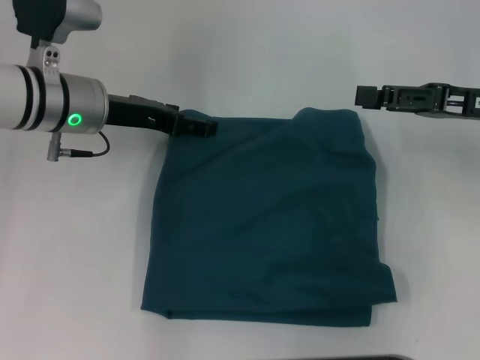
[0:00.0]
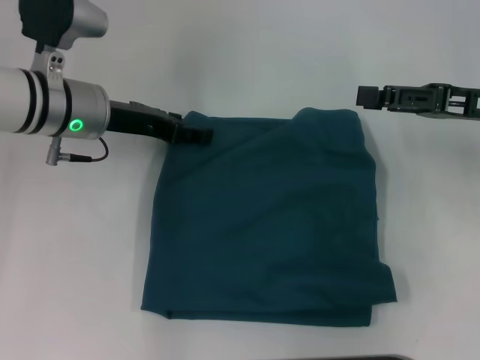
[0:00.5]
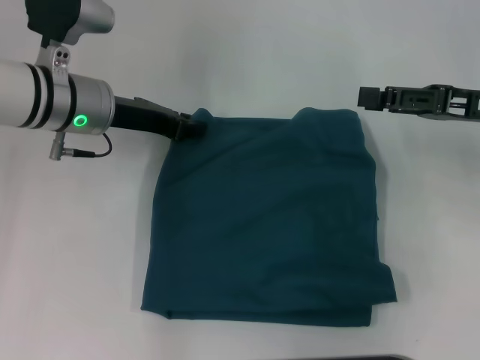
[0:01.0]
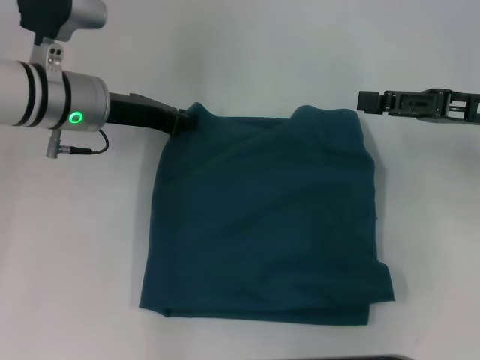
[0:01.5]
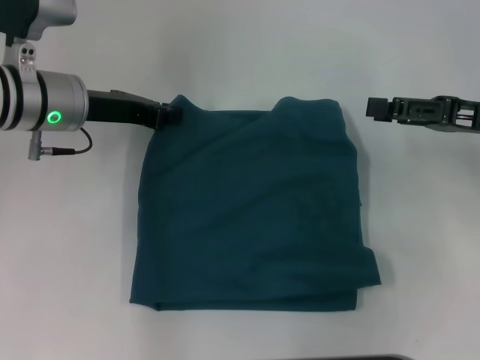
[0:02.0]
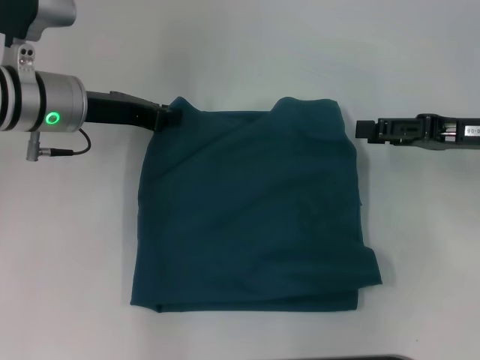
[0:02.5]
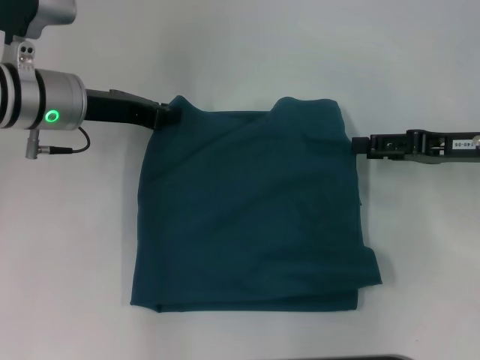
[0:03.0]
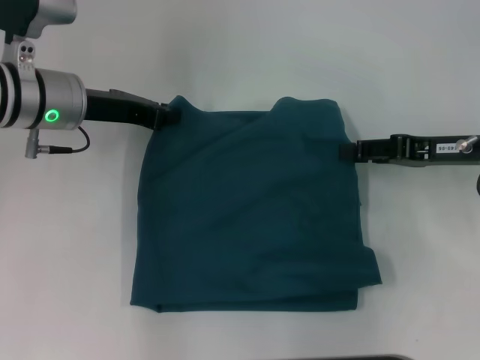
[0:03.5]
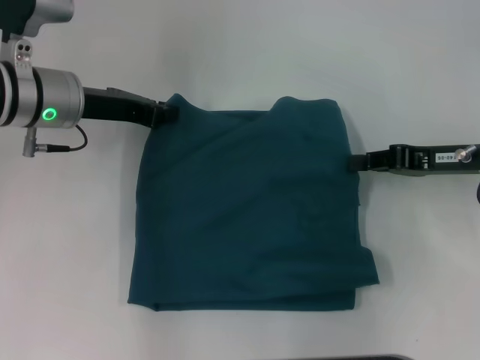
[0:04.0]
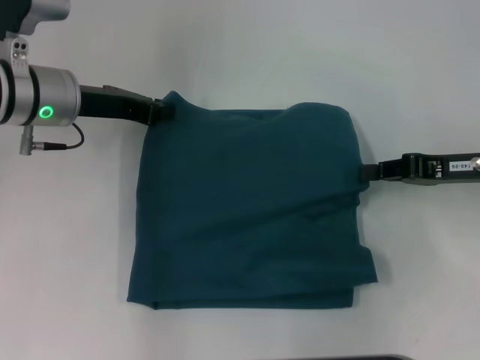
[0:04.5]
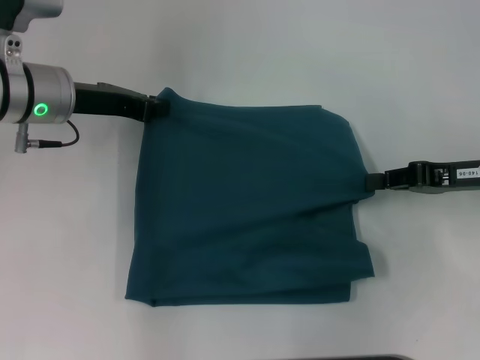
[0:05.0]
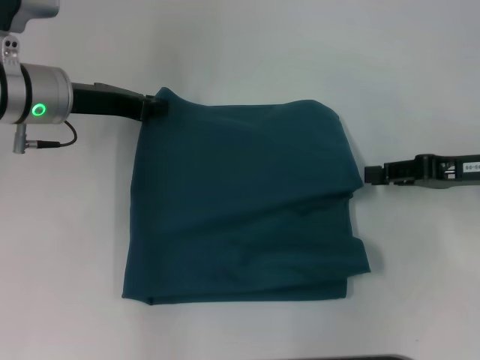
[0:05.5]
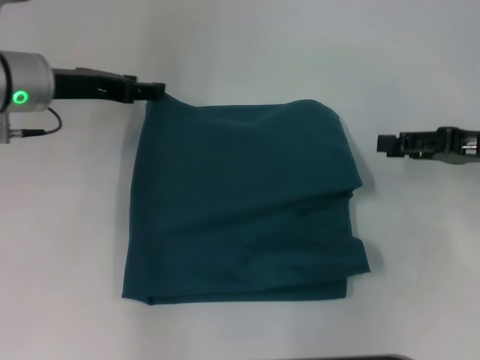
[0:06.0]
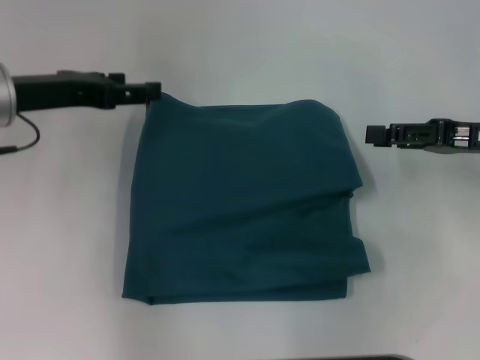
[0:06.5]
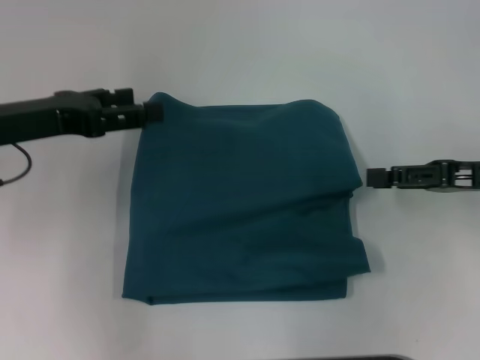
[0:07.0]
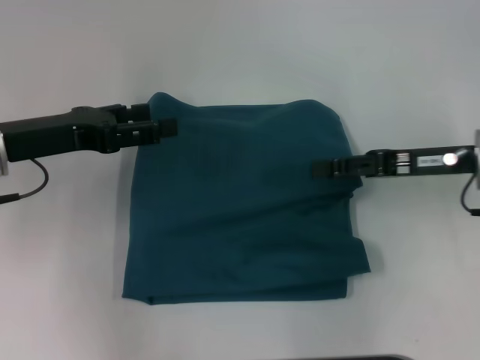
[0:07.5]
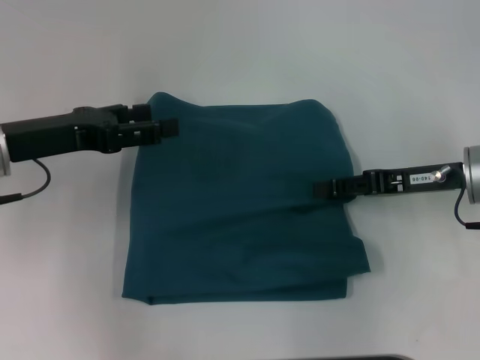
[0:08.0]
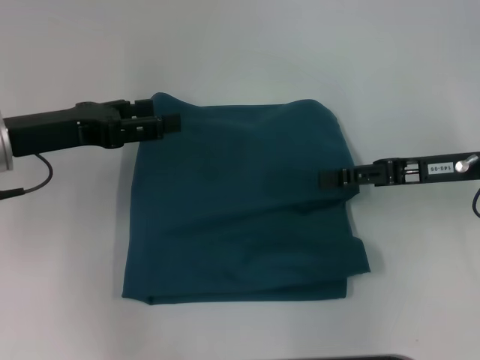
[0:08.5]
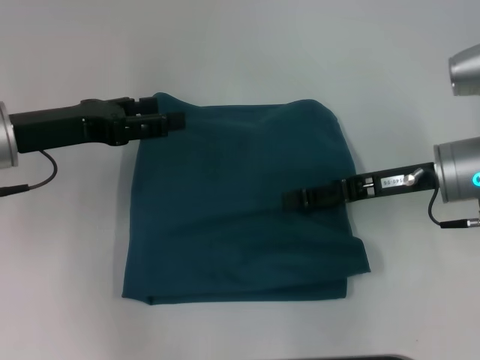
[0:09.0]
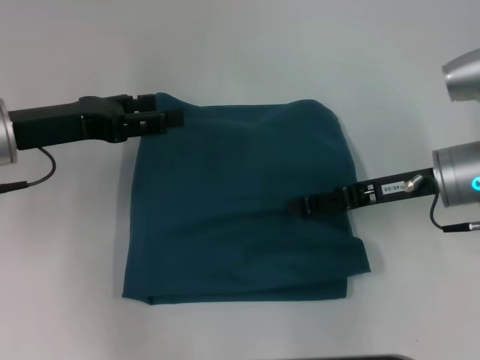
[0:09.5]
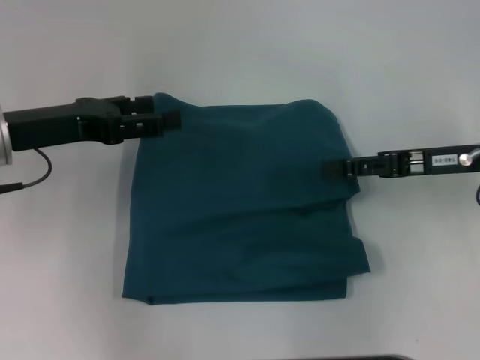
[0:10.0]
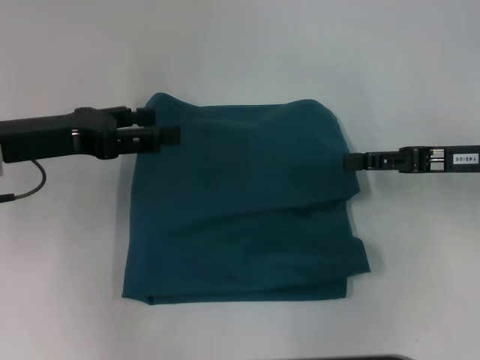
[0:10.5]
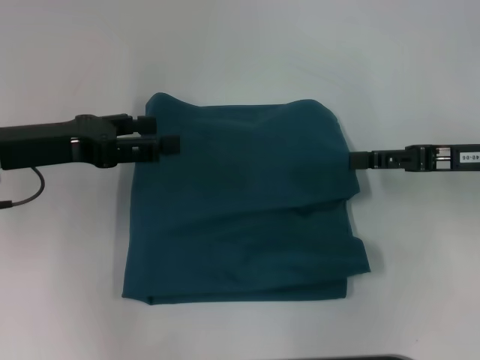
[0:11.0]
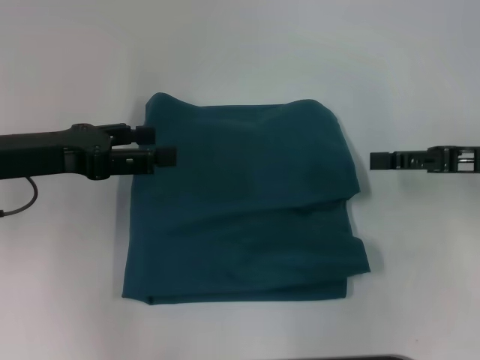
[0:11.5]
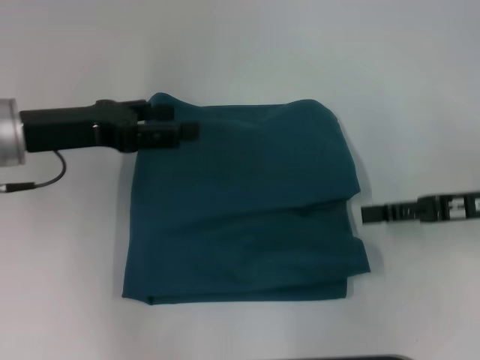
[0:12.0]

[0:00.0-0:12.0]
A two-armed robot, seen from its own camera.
0:00.0 to 0:02.0: The left gripper closes its fingers.
0:02.0 to 0:04.0: The right gripper closes up.
0:04.0 to 0:06.0: The left gripper opens its fingers. Meanwhile the right gripper opens up.
0:06.0 to 0:08.0: The left gripper heads backward, covering roughly 10 cm, and opens up. Meanwhile the right gripper heads to the left, covering some 5 cm.
0:08.0 to 0:10.0: The grippers move only a little.
0:10.0 to 0:12.0: The right gripper shifts by roughly 5 cm.

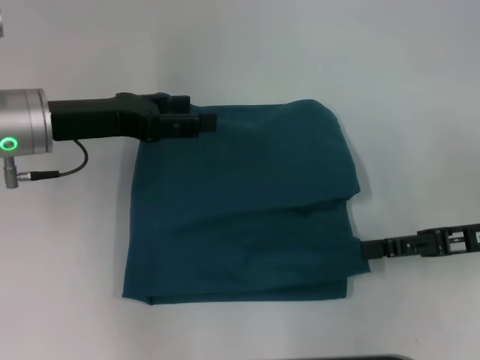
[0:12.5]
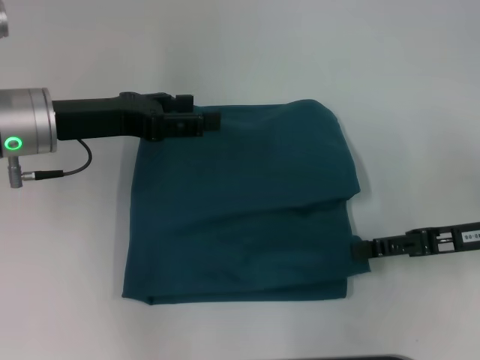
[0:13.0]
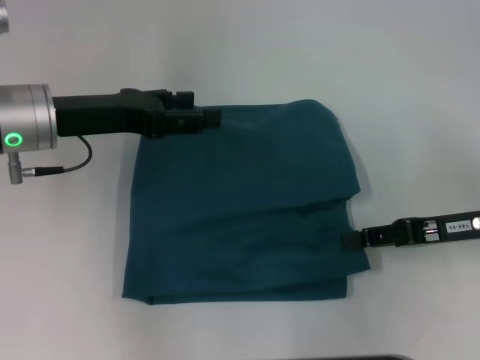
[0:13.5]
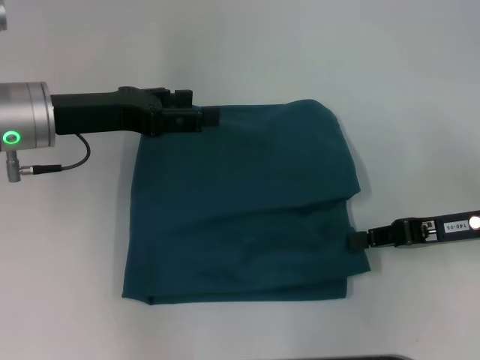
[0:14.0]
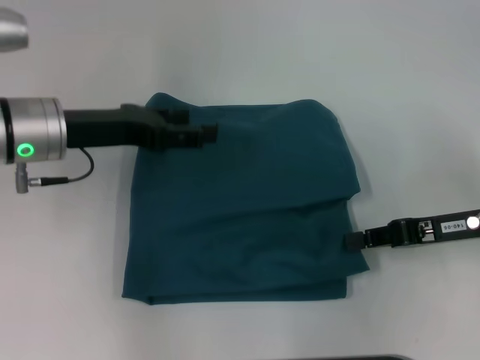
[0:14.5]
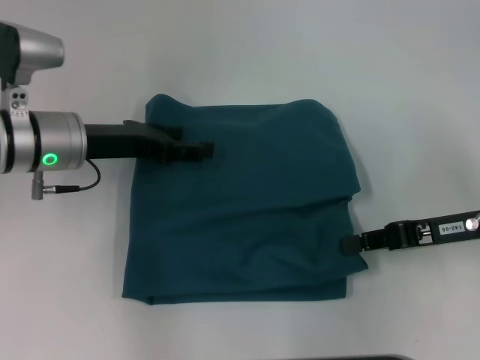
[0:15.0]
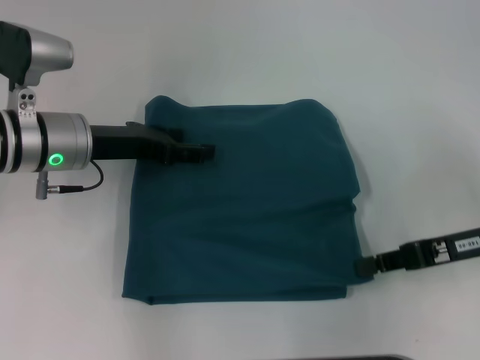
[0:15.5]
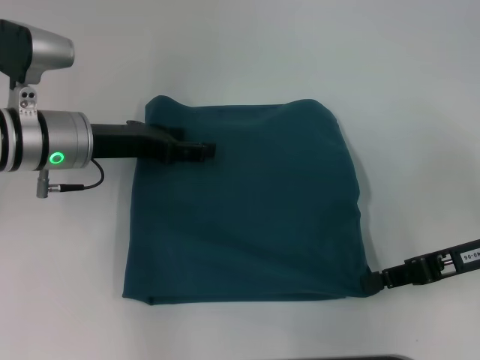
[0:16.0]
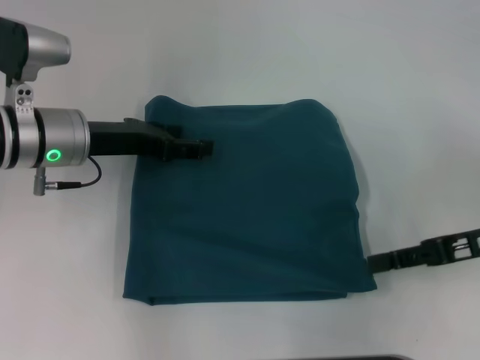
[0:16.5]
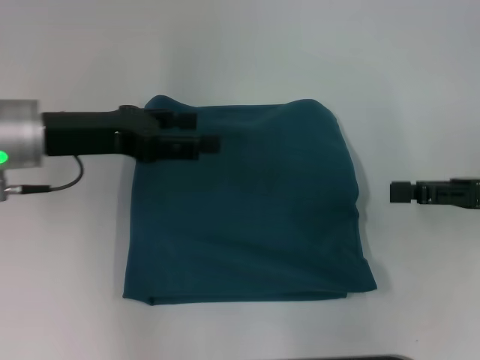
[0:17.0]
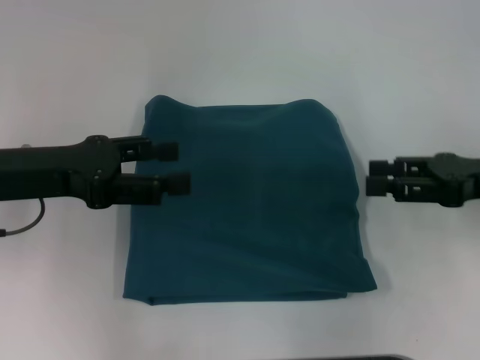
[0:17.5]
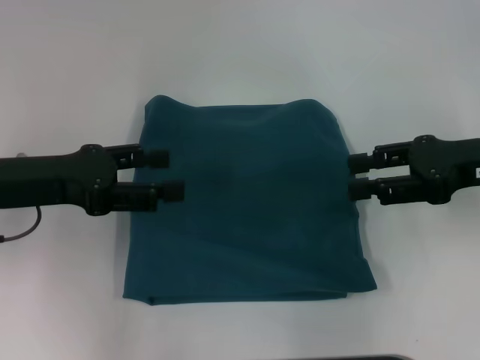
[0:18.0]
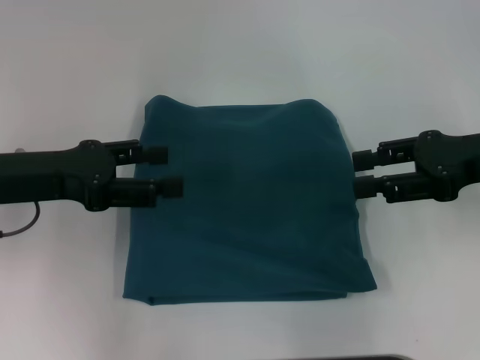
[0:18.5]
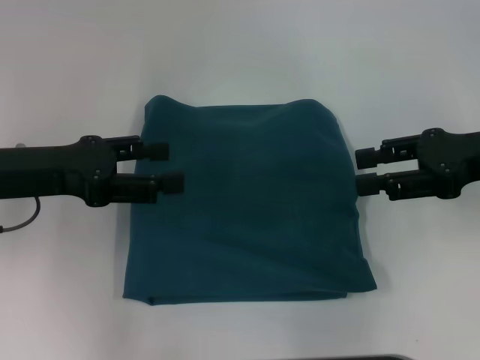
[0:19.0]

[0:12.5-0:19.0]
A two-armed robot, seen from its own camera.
0:12.5 to 0:14.5: The right gripper closes its fingers.
0:14.5 to 0:17.0: The right gripper shifts by roughly 5 cm, and opens up.
0:17.0 to 0:19.0: The left gripper shifts by some 5 cm, while the right gripper changes place by some 5 cm.

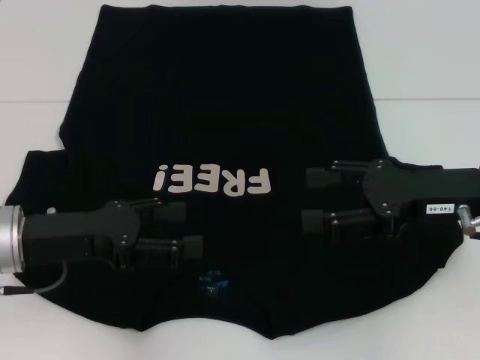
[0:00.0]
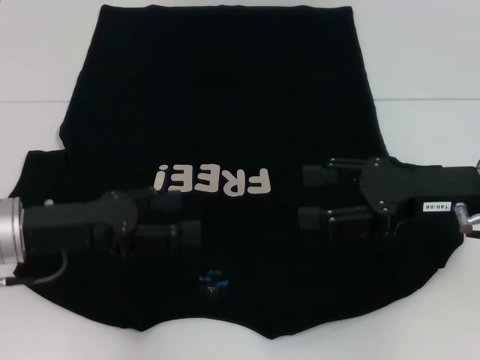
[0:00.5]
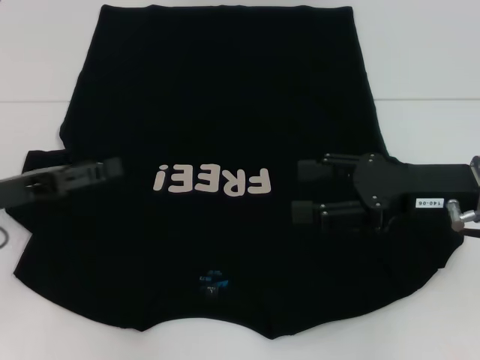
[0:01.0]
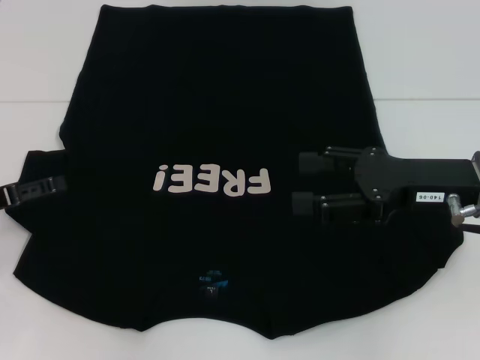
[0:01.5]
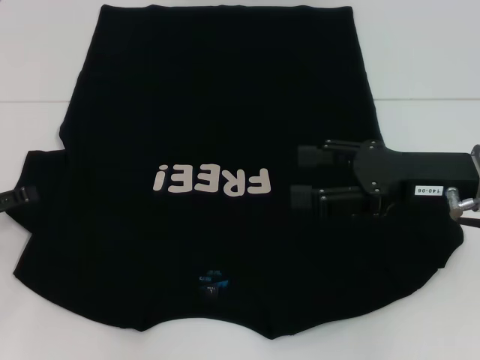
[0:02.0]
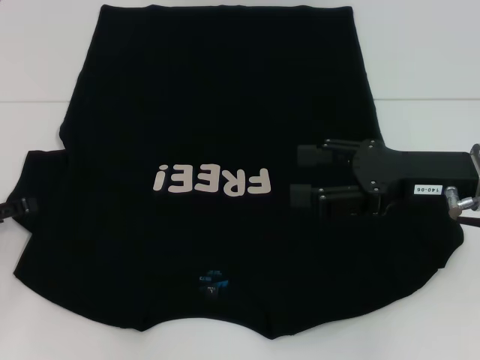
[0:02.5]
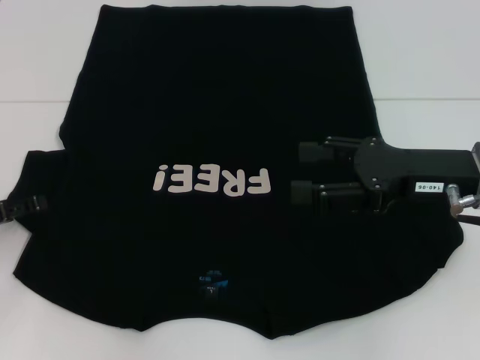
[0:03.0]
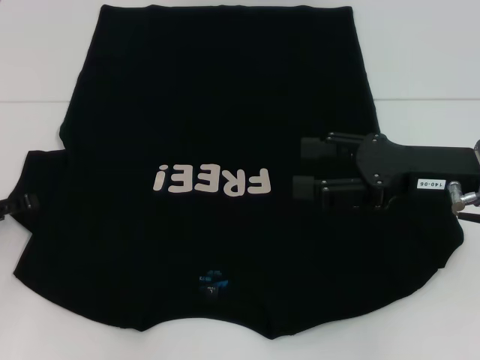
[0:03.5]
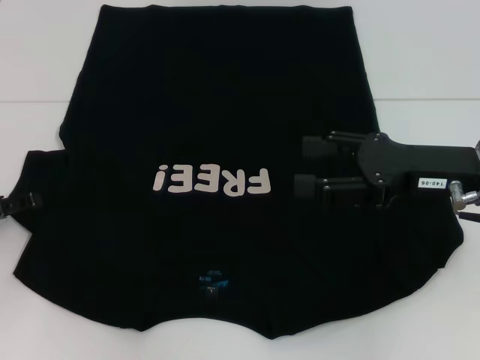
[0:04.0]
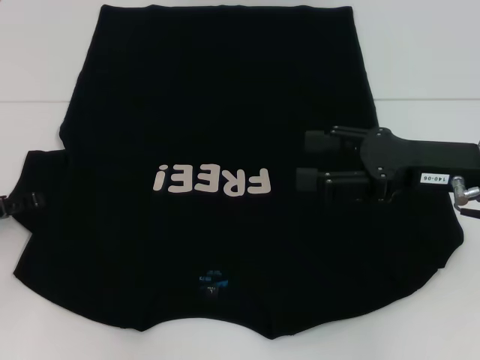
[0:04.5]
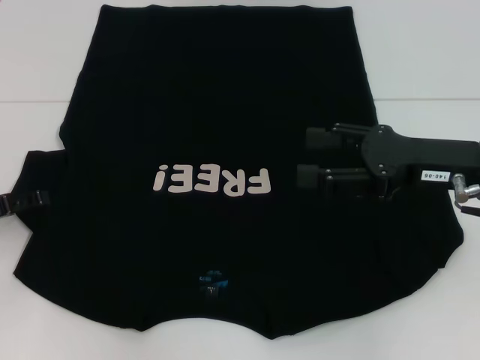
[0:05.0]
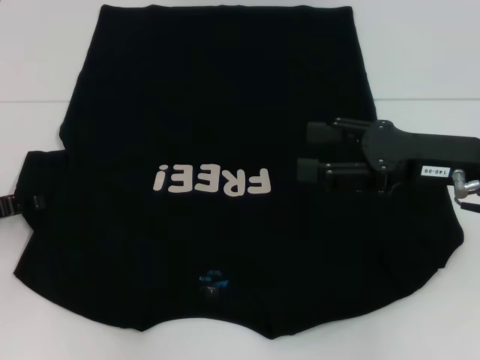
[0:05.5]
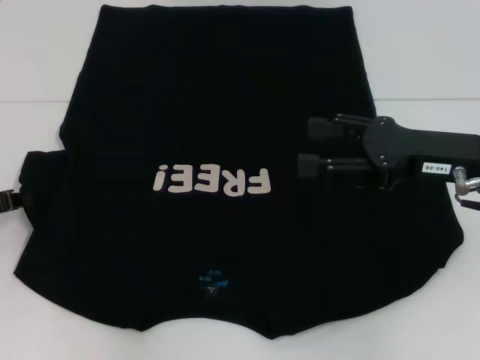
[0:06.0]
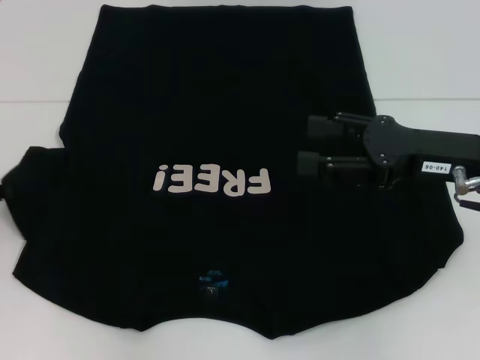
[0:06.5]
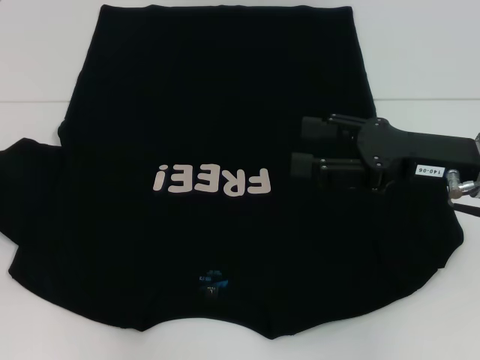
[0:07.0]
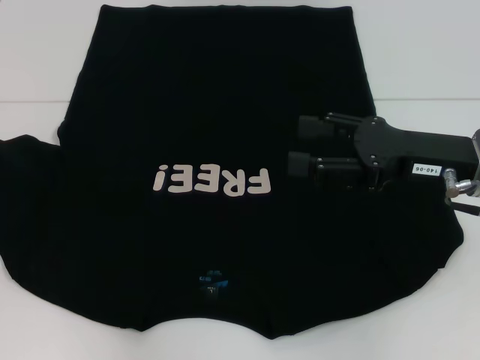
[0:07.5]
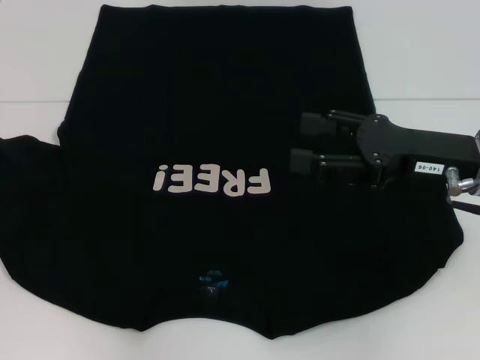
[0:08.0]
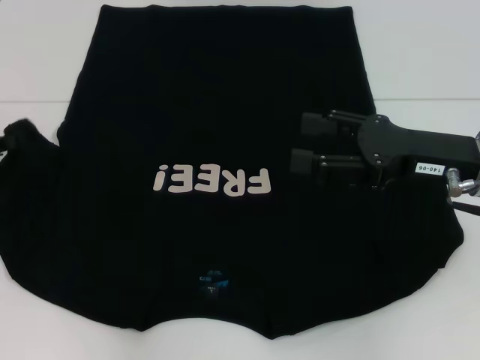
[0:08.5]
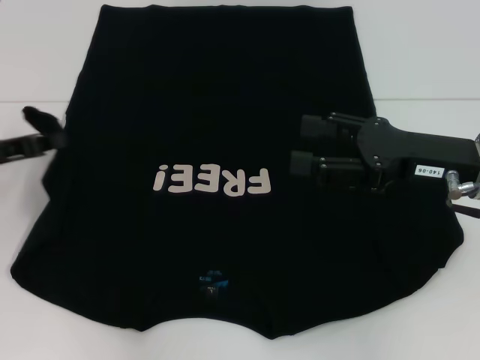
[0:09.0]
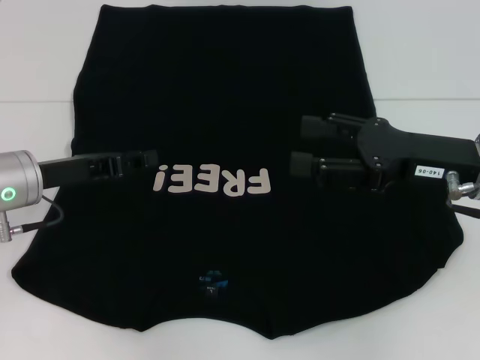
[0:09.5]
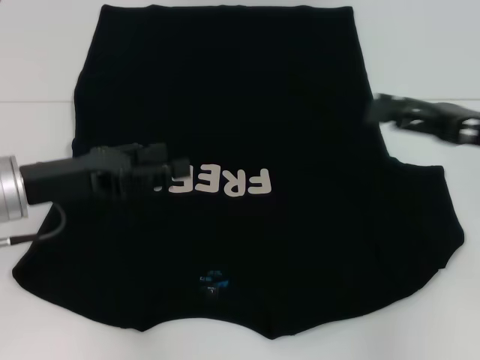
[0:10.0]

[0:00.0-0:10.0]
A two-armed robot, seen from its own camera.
Step, 0:00.0 to 0:10.0: Fold the bottom left sleeve with your left hand.
0:00.0 to 0:02.0: The left gripper heads to the left, covering roughly 15 cm.
0:02.0 to 0:04.0: The grippers move only a little.
0:04.0 to 0:06.0: The left gripper closes.
0:06.0 to 0:08.0: The left gripper moves roughly 5 cm.
0:08.0 to 0:10.0: The left gripper goes roughly 15 cm to the right, and opens up, while the right gripper heads to the right, covering about 5 cm.
